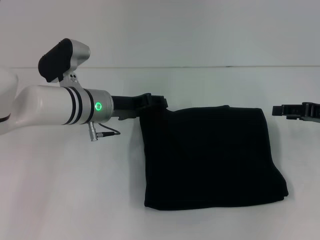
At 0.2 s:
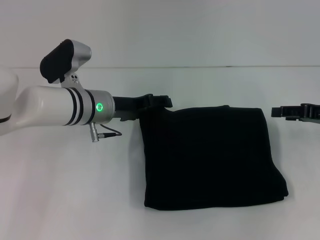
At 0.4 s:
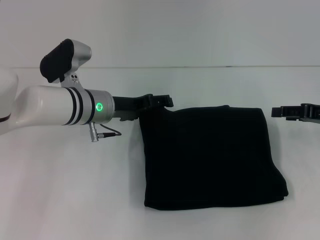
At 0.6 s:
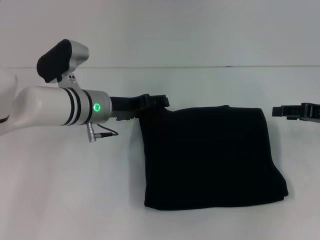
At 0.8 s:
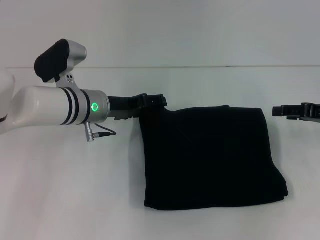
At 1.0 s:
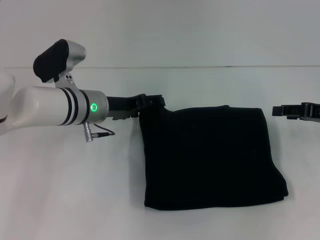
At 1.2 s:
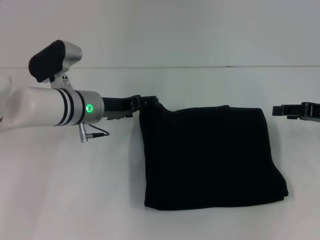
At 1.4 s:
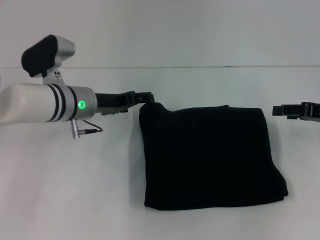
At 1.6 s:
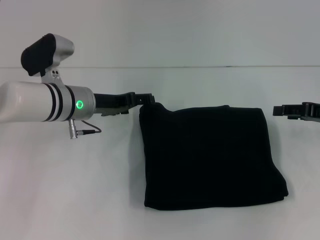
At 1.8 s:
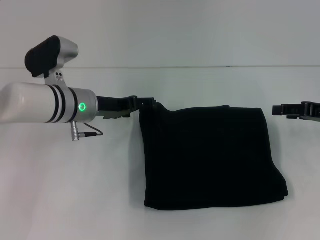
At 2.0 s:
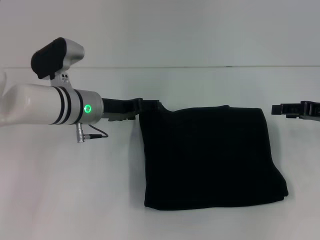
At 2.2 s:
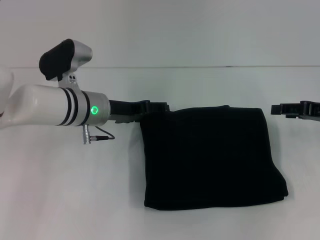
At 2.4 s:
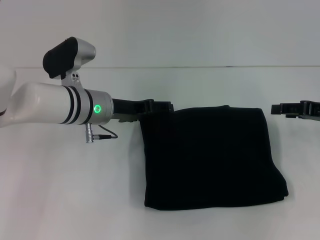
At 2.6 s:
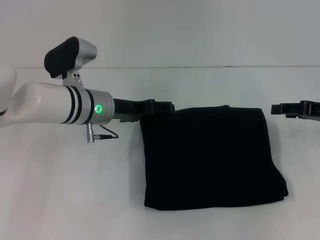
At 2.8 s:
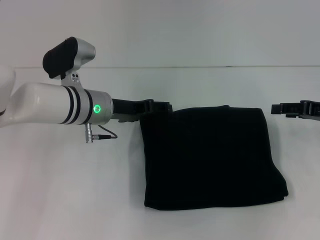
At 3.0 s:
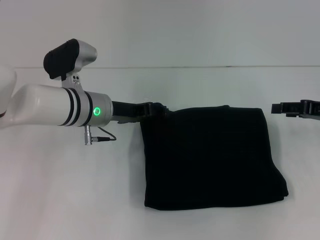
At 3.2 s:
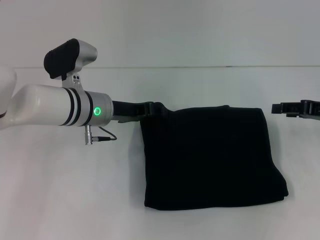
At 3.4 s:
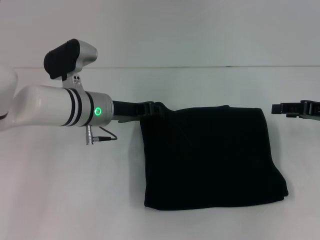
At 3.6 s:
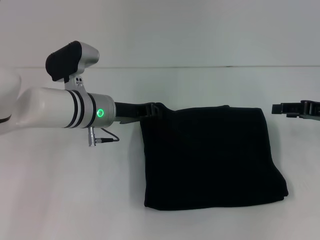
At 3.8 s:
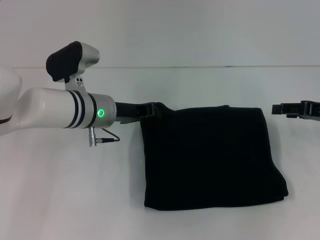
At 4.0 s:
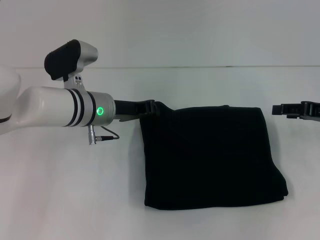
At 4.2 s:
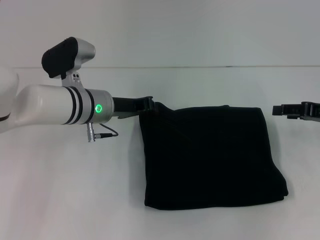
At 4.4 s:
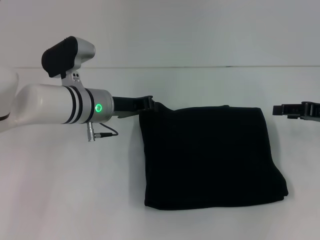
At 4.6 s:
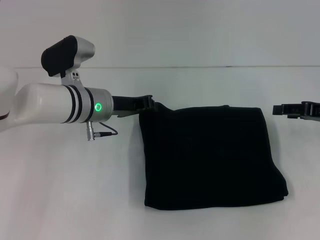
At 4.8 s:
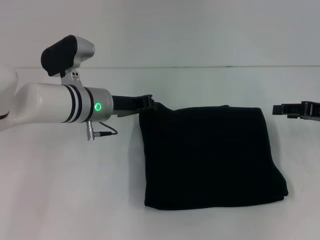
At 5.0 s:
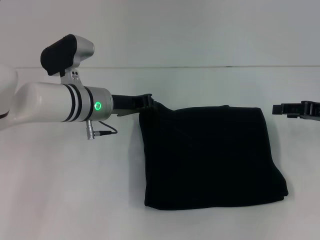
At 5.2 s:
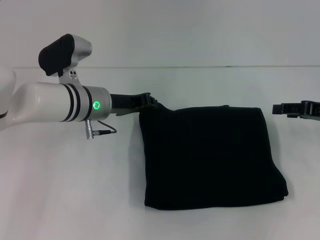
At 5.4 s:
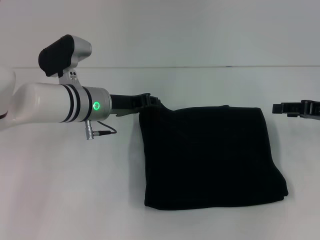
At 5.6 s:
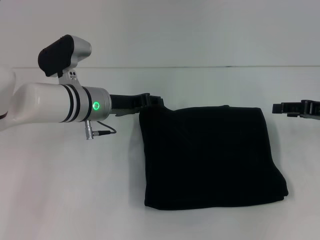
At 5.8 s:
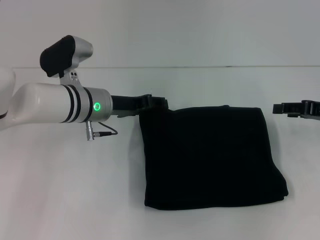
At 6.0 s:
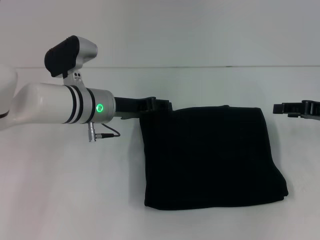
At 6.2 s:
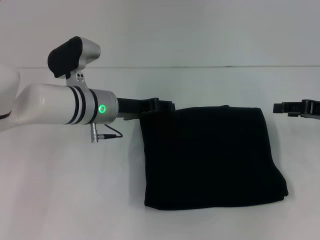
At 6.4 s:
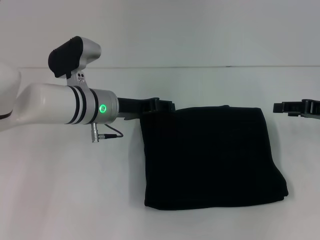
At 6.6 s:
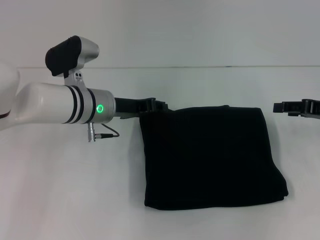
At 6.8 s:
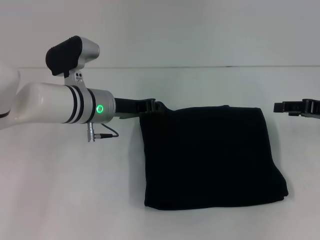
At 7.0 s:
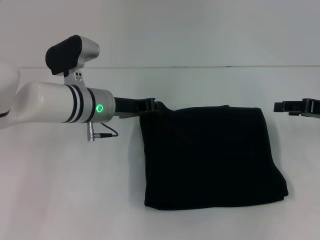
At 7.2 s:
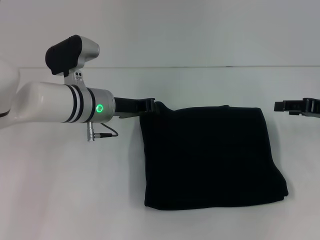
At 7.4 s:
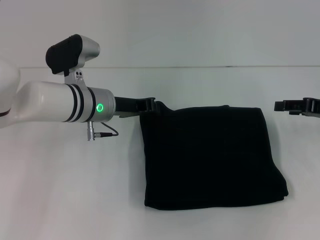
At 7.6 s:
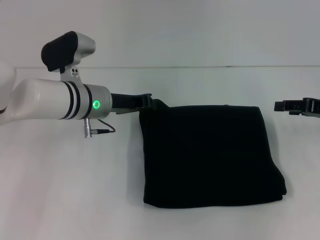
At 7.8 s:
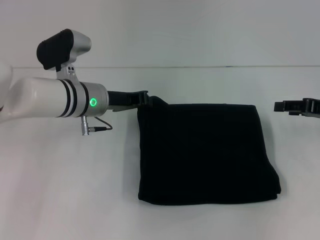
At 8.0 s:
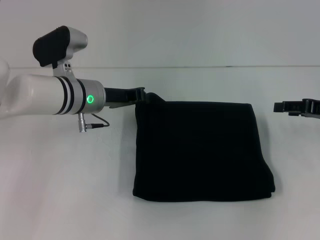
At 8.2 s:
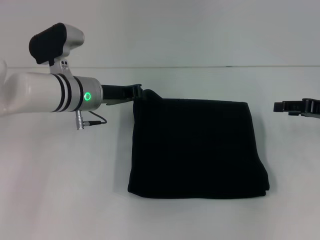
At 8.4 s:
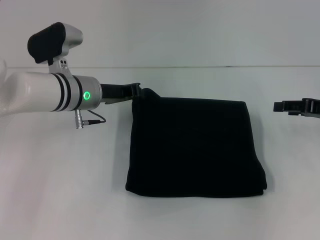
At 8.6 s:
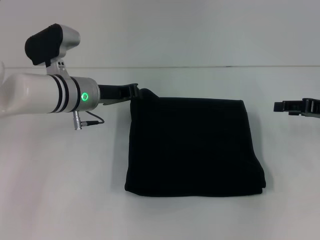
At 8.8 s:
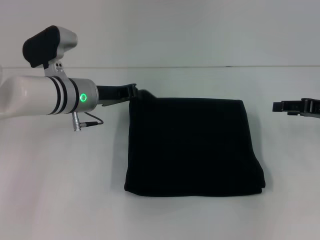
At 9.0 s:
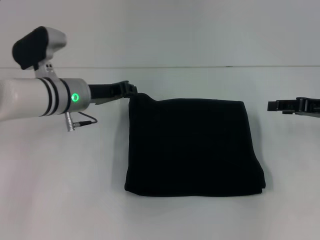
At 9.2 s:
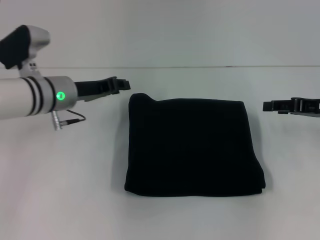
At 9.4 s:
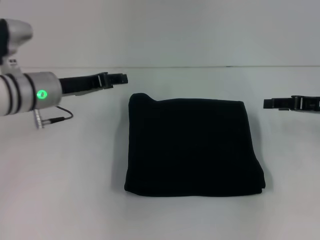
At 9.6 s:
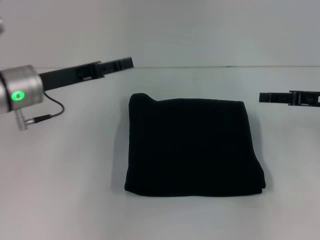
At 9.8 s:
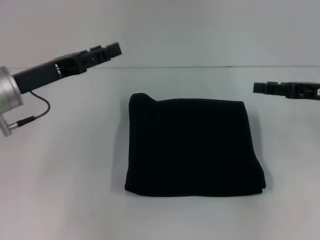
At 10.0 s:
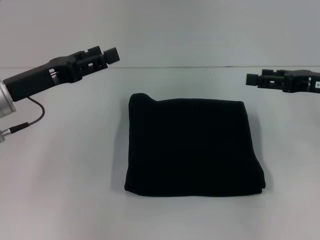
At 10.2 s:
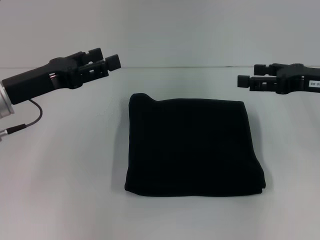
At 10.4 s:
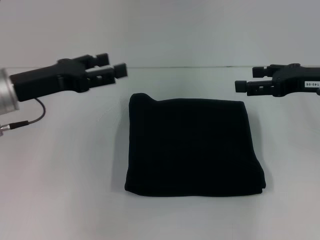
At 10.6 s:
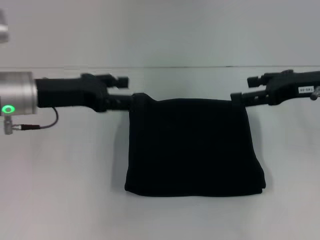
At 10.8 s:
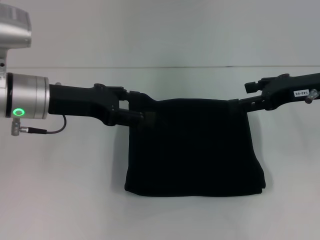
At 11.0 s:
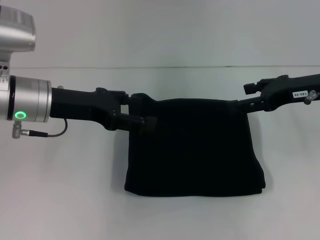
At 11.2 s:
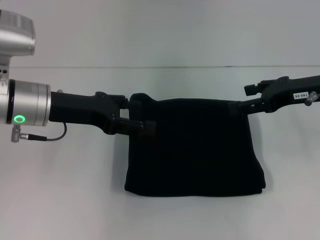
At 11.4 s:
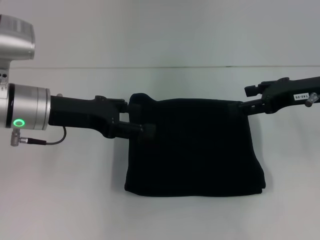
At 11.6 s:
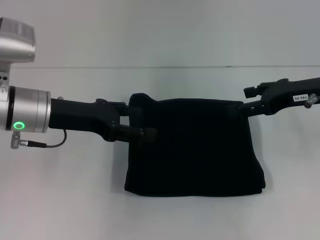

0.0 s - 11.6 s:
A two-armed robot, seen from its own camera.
0.0 s - 1.4 s: The left gripper opens.
1.4 s - 2.8 s: The grippers move only a little.
2.8 s - 4.4 s: The left gripper closes up.
4.4 s - 5.8 s: The left gripper opens.
5.8 s - 7.2 s: The left gripper closes.
7.2 s - 8.8 s: The grippers stay close to where they were, moving slightly.
8.8 s - 10.2 s: The right gripper moves about 5 cm; the left gripper heads to the left, backward and upward, covering roughly 15 cm, and opens its fingers.

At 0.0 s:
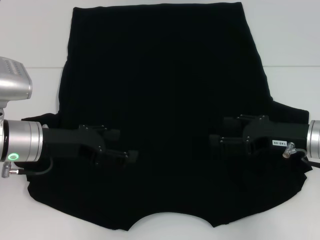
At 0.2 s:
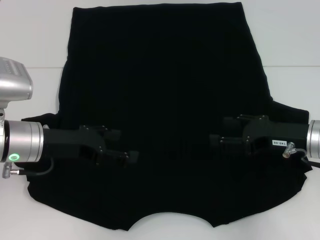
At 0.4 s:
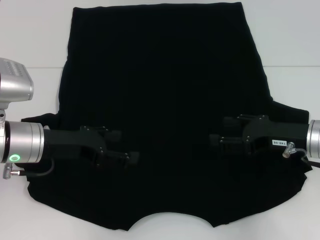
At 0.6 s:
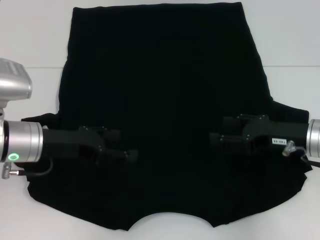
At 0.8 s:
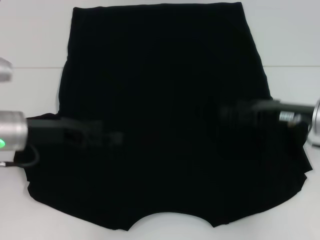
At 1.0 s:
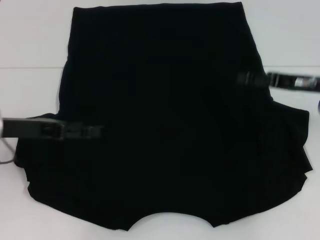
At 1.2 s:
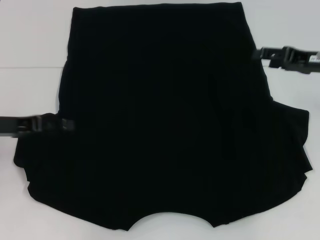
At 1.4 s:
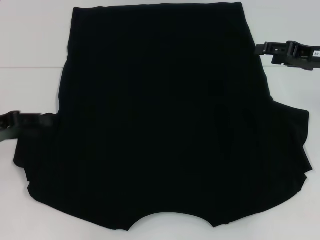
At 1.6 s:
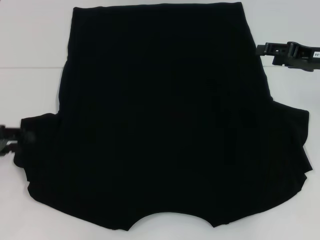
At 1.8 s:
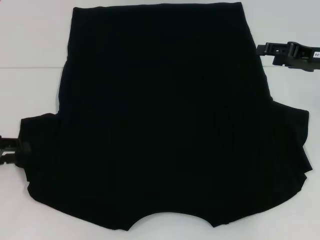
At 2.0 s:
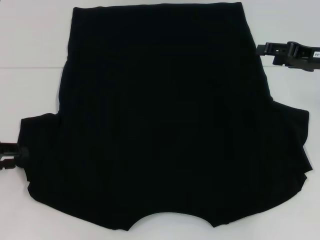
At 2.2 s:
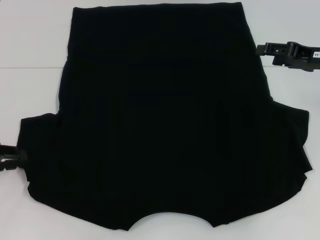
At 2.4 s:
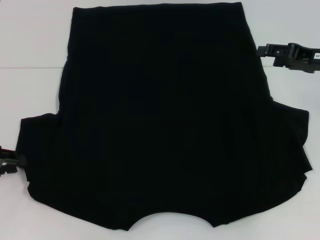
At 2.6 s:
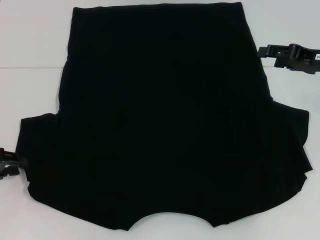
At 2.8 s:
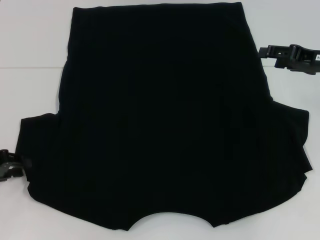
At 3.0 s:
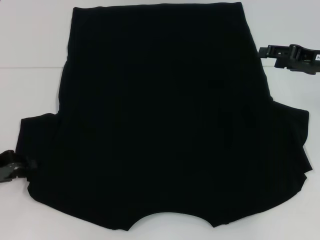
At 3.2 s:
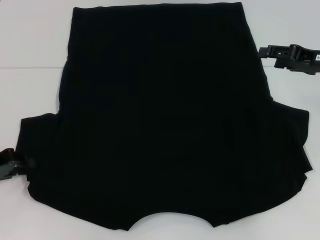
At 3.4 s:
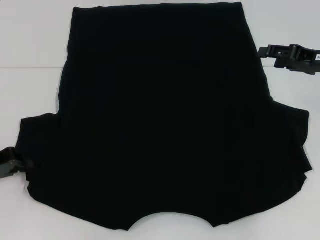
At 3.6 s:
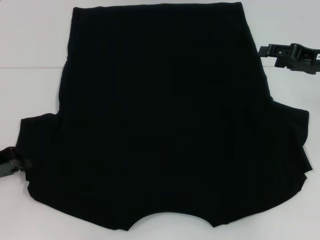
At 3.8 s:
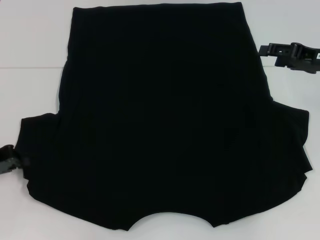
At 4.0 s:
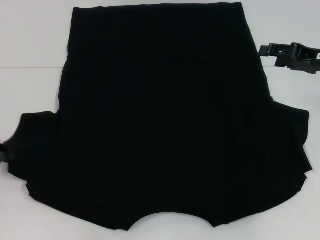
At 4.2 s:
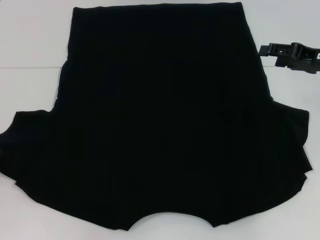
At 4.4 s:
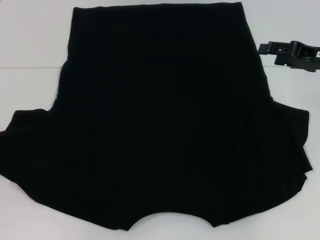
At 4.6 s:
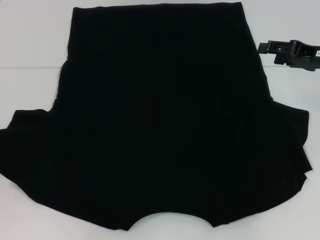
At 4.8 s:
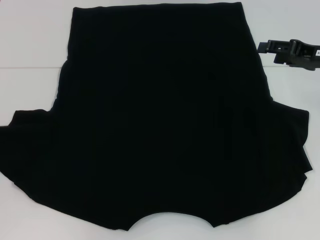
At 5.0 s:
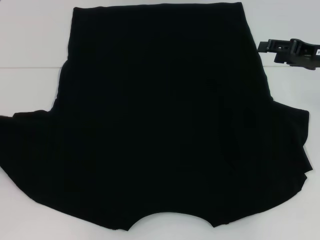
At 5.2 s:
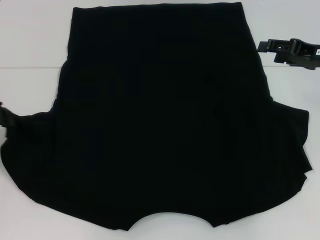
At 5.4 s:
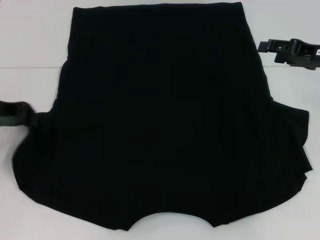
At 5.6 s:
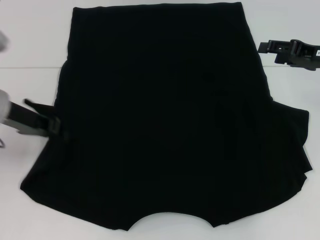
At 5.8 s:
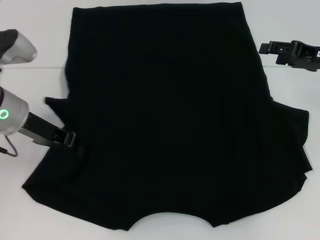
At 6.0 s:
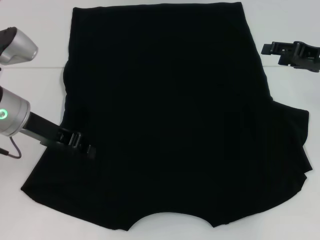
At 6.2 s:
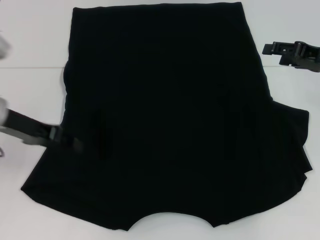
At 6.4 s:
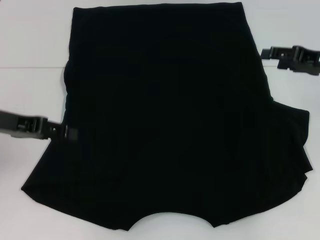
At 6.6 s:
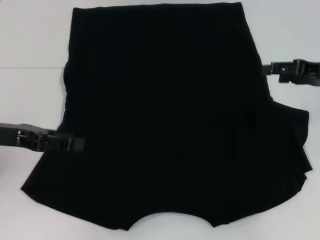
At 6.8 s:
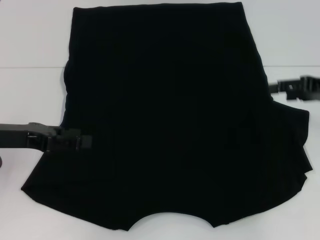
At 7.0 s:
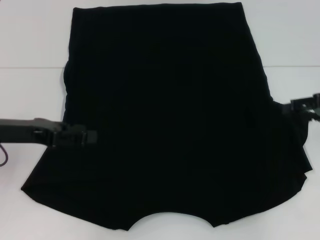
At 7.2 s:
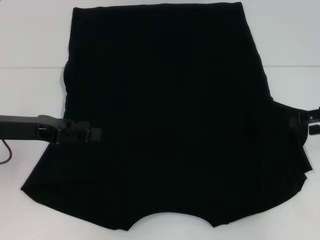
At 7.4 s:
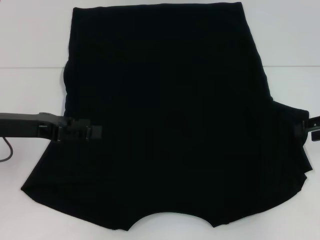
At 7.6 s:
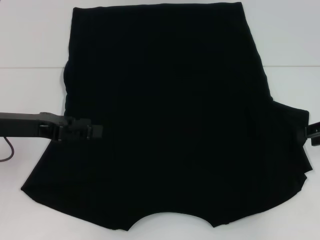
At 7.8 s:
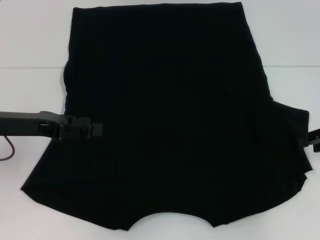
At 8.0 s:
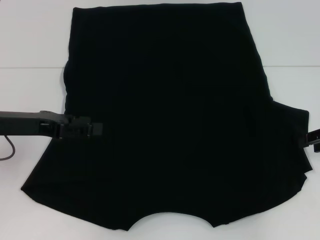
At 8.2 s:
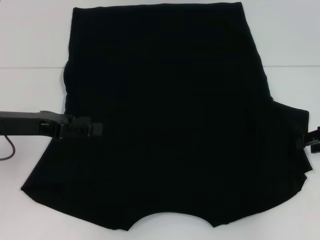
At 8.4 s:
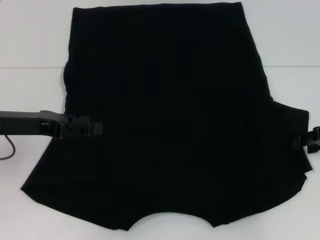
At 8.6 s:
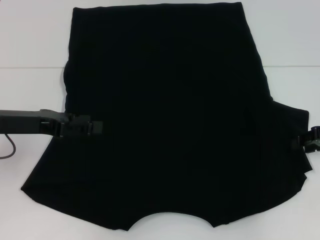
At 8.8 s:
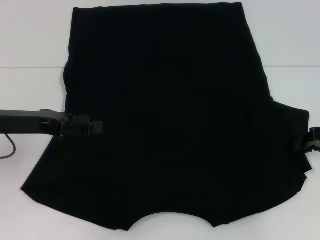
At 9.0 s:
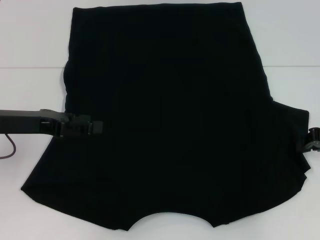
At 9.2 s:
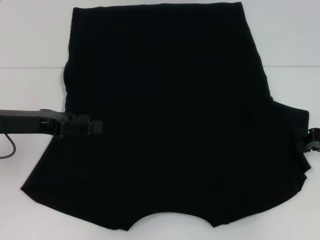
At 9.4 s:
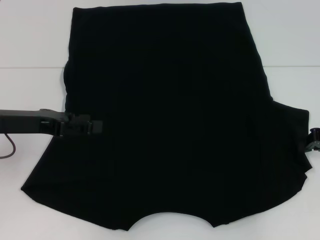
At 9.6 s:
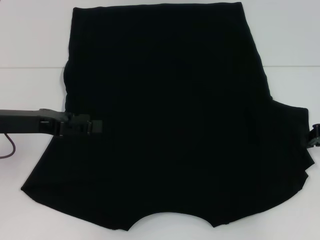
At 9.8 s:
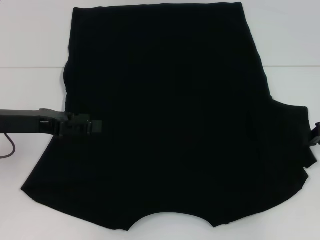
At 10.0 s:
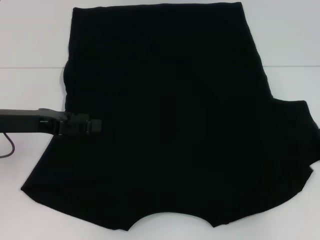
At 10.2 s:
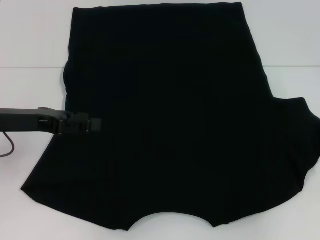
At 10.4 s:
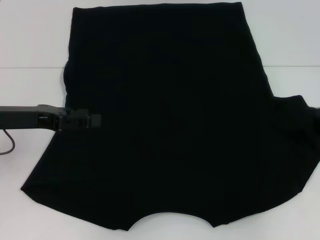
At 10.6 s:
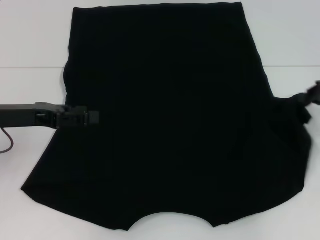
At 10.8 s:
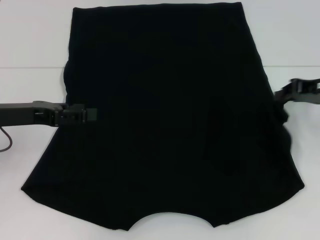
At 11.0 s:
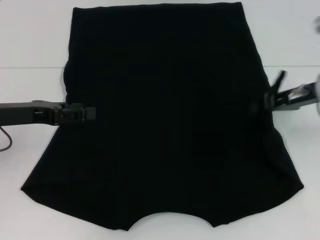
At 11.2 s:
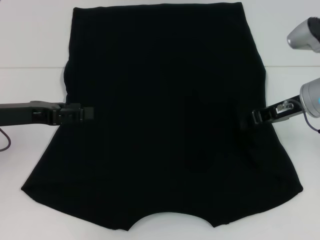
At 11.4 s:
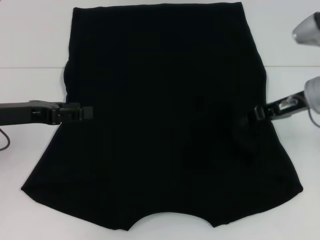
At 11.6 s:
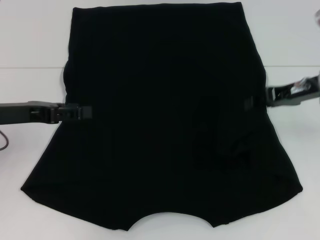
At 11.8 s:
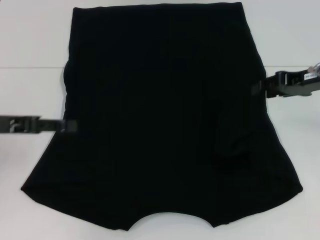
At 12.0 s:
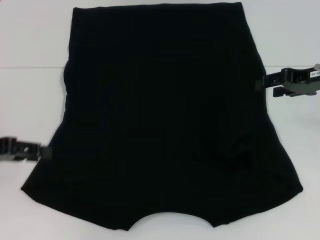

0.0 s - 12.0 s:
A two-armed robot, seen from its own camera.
Step, 0.0 s - 6.2 s: Fold the bottom left sleeve with your left hand.
Step, 6.4 s - 11.4 s: Fold the bottom right sleeve with your right hand.
0.0 s - 1.6 s: The left gripper moves to the left, some 15 cm, and closes up; the right gripper travels forward, upward and to the right by some 10 cm.
1.6 s - 3.0 s: The grippers make only small movements.
3.0 s - 4.4 s: The left gripper ends up some 5 cm from where it was.
4.4 s - 6.0 s: The left gripper goes roughly 15 cm to the right.
6.0 s - 7.6 s: The left gripper changes place by approximately 5 cm, and opens up. The right gripper shifts approximately 5 cm backward.
9.0 s - 10.4 s: The grippers make only small movements.
10.4 s - 12.0 s: Both grippers move to the left, roughly 5 cm. The right gripper opens.
